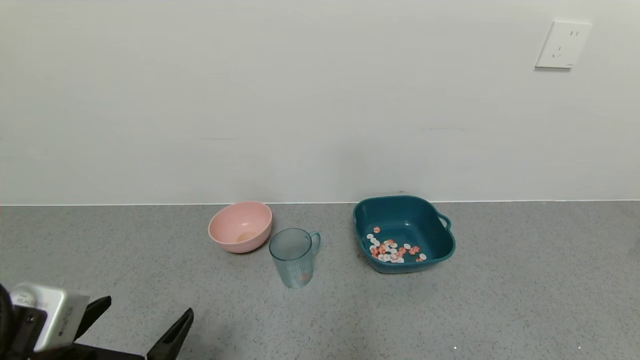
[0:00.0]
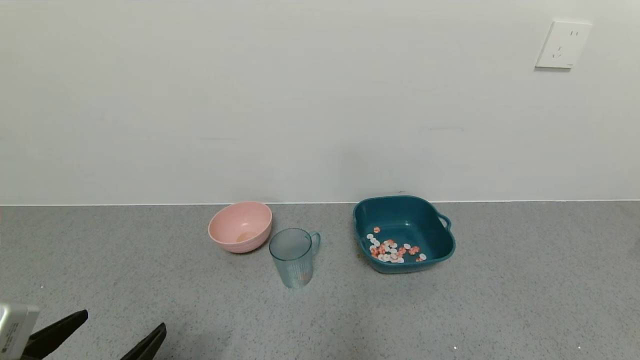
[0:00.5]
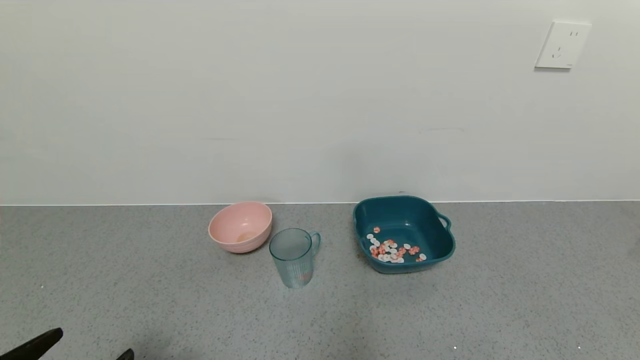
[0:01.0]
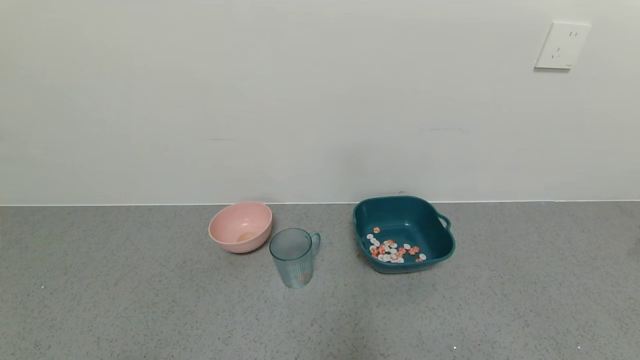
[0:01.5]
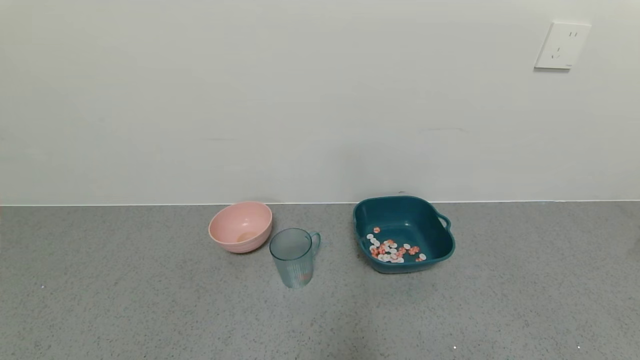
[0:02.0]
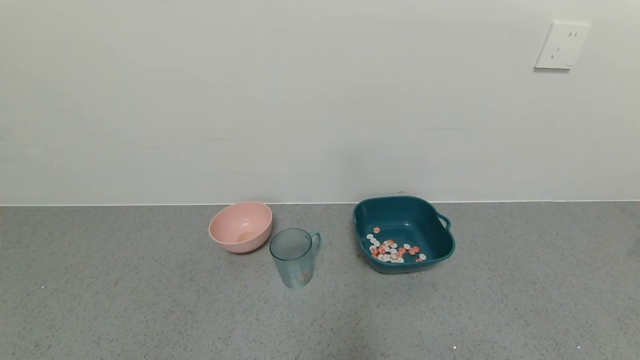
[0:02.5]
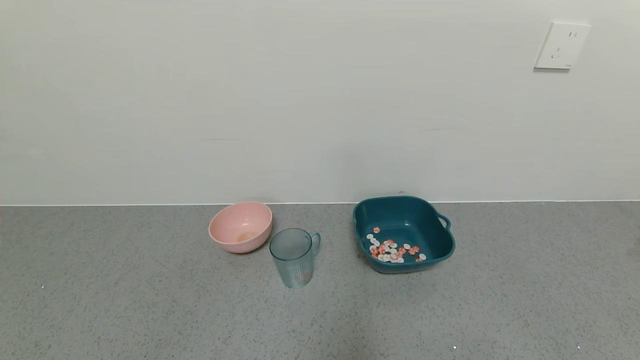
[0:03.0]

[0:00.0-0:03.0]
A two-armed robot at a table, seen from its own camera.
Task of the whole recording: use a gripper to pick up the cup and pour the solid into a bowl or tray.
0:00.0 to 0:01.5: The left gripper is displaced backward and to the left by about 10 cm.
